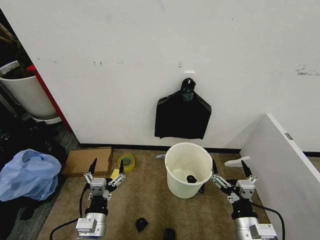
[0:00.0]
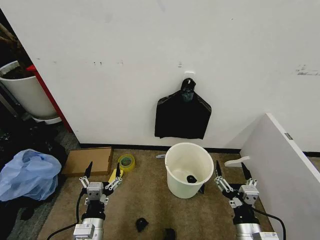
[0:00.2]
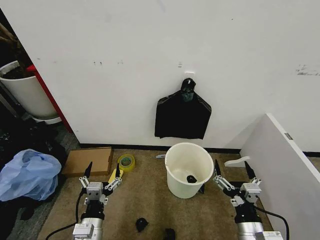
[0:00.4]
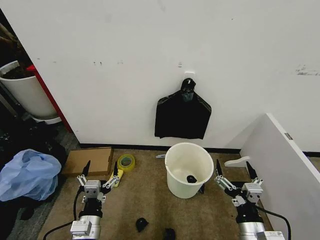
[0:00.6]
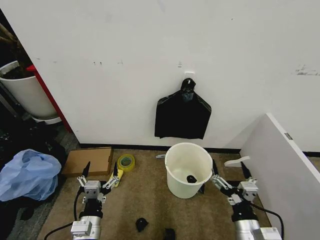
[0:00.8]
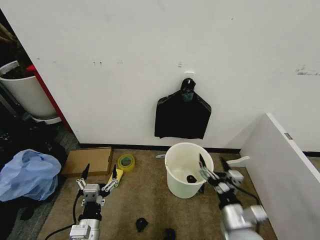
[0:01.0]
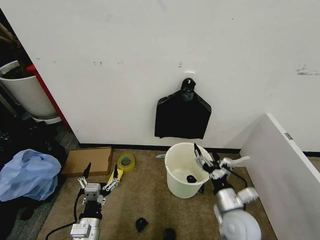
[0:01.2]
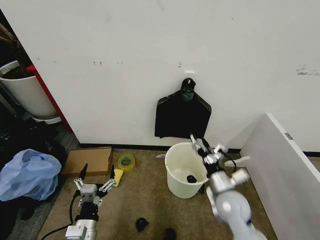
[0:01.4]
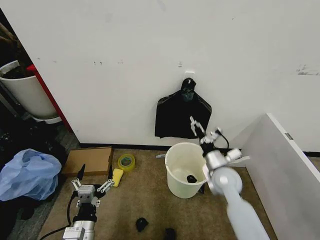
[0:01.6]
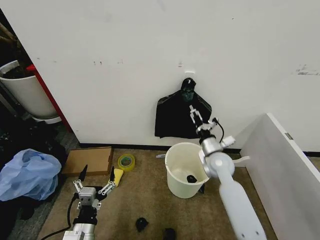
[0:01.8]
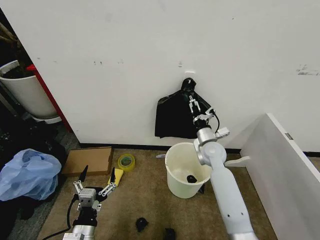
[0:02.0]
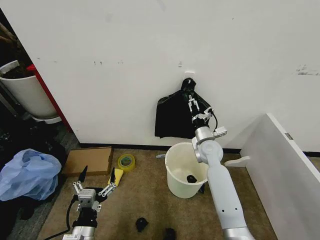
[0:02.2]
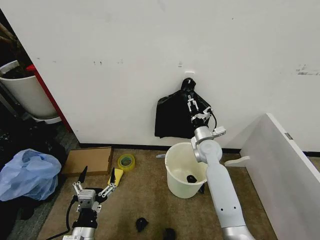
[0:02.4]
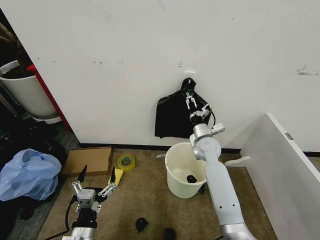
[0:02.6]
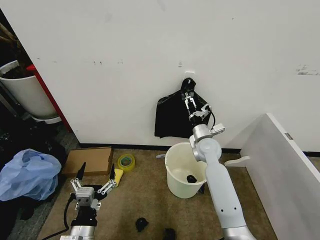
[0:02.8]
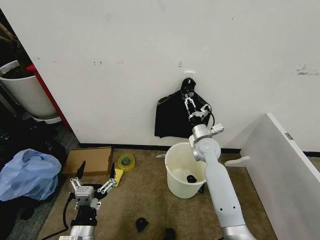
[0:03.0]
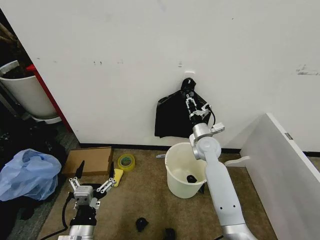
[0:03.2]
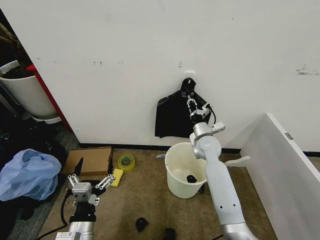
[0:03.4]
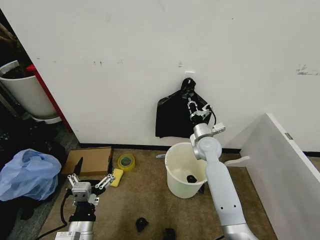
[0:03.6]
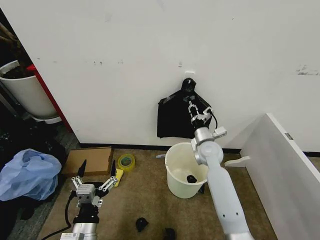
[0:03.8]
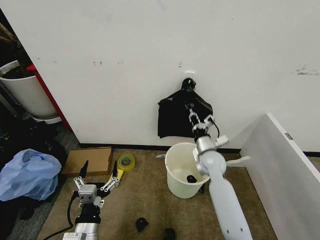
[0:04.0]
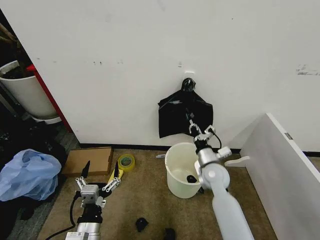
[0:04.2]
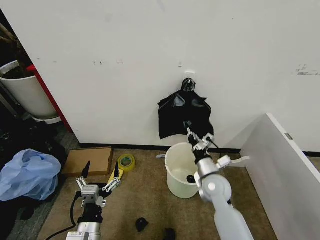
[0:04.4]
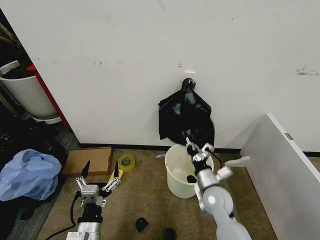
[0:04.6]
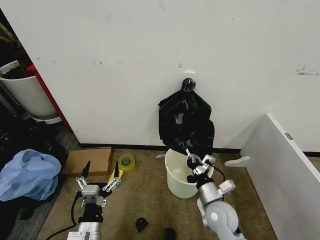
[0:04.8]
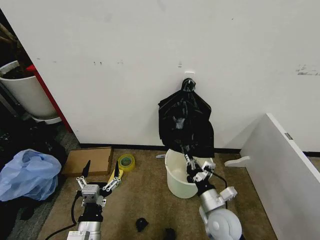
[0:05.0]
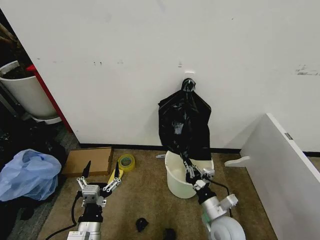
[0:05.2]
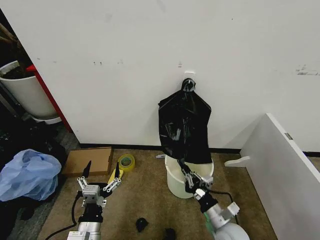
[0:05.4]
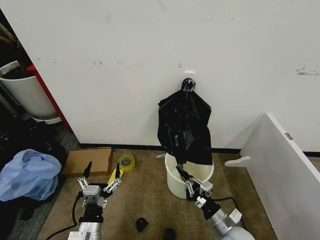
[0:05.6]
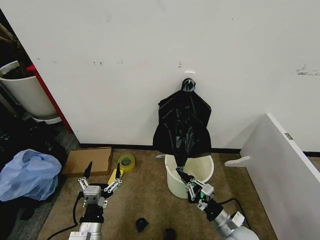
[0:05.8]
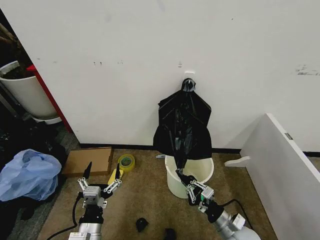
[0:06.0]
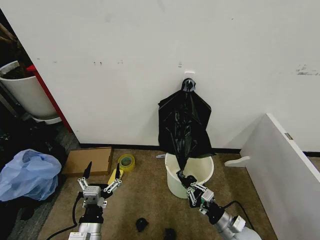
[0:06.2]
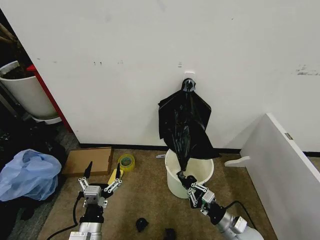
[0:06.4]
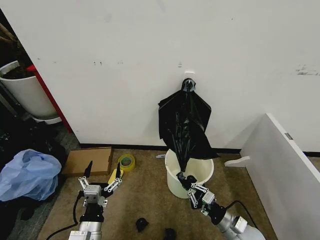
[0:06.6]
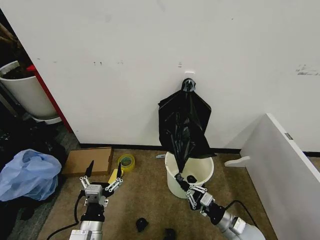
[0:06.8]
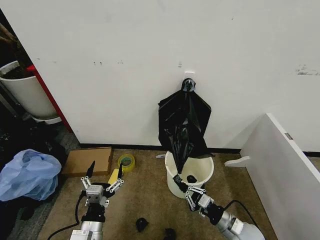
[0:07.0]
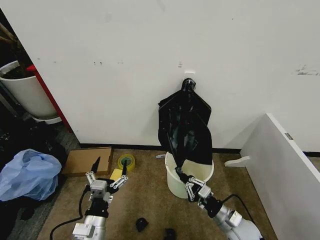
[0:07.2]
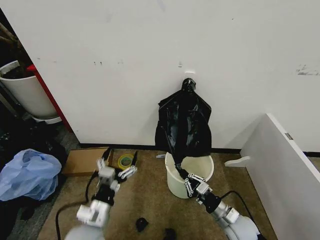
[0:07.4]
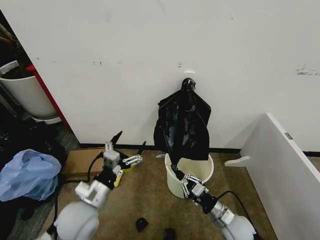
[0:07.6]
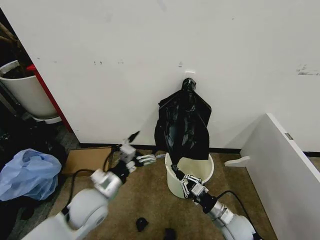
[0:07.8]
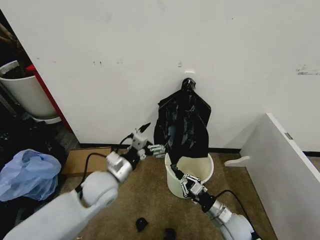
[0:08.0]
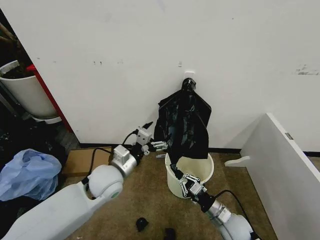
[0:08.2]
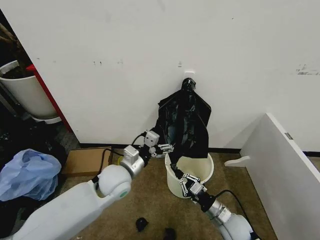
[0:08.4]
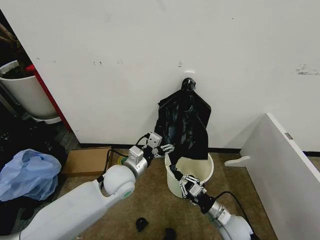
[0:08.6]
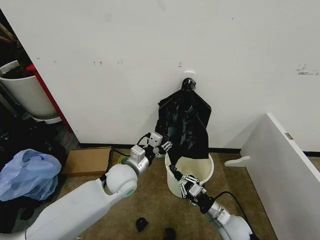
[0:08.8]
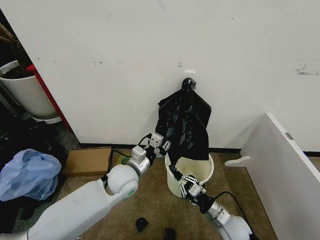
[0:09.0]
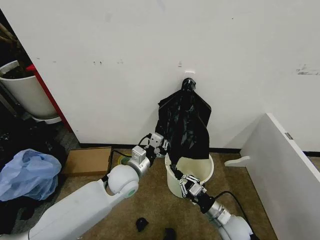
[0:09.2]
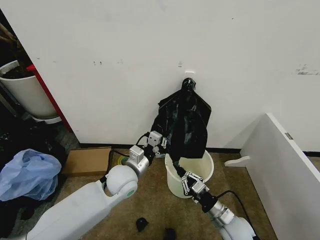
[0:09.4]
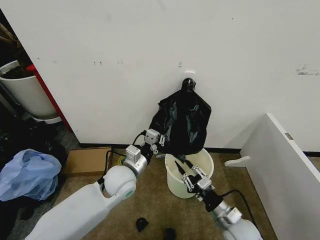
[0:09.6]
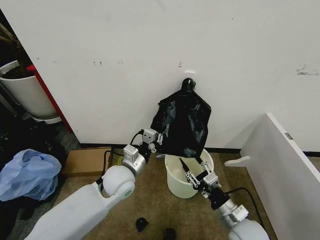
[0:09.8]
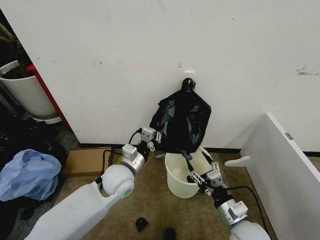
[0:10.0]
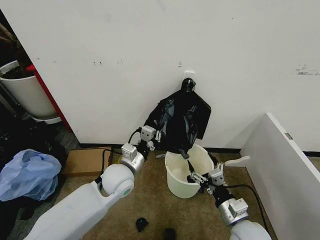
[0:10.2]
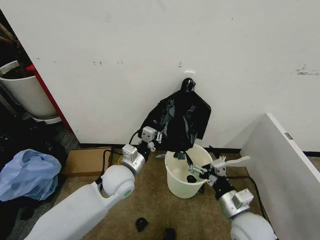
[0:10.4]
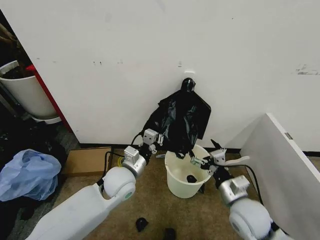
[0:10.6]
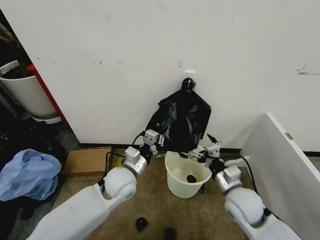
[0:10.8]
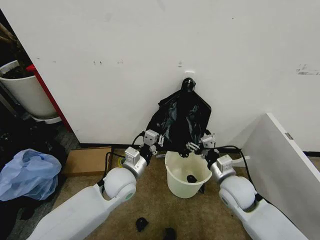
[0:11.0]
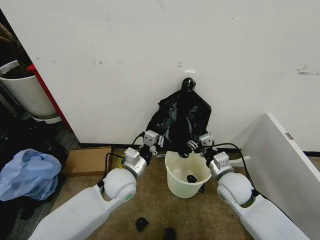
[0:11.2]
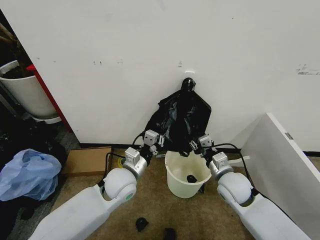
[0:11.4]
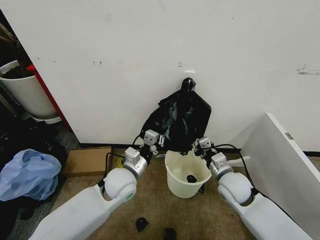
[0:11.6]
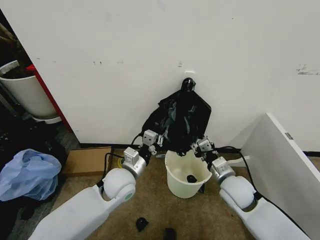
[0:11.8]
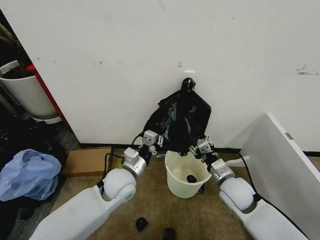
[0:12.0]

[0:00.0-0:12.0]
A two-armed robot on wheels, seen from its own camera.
Task of the whole recording: Place the garbage bag over the trash bin.
0:01.6 to 0:03.0: The right gripper goes some 10 cm forward, and closes up.
0:03.0 to 0:04.4: The right gripper shifts approximately 15 cm backward, and closes up.
0:04.4 to 0:06.0: The right gripper moves backward, downward and to the right, approximately 15 cm.
0:06.0 to 0:07.6: The left gripper goes approximately 10 cm forward and upward.
0:07.6 to 0:09.0: The left gripper shifts some 15 cm forward and to the right, and closes up.
0:09.0 to 0:10.4: The right gripper travels upward by some 15 cm, and opens its fingers.
0:10.4 to 0:12.0: The right gripper moves forward, roughly 10 cm, and closes.

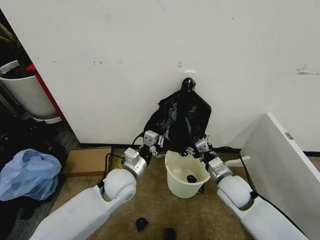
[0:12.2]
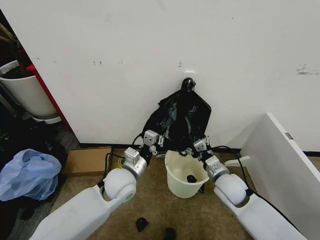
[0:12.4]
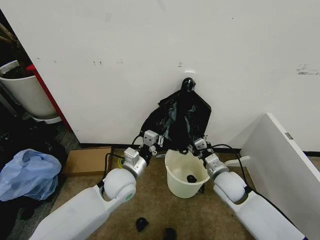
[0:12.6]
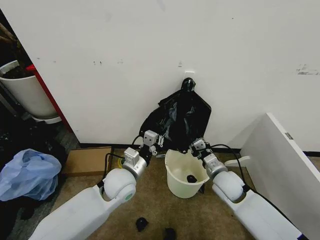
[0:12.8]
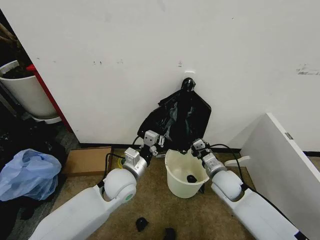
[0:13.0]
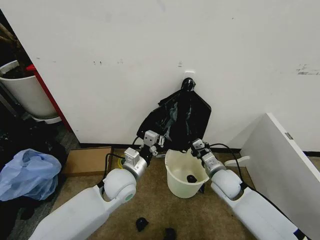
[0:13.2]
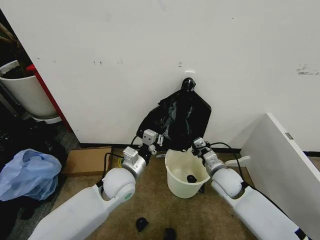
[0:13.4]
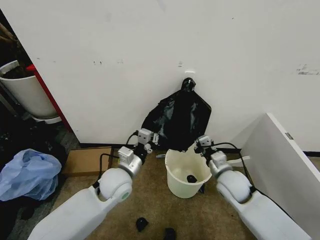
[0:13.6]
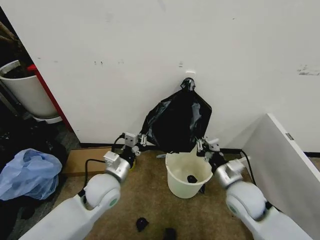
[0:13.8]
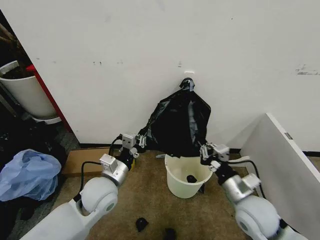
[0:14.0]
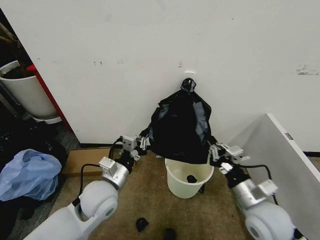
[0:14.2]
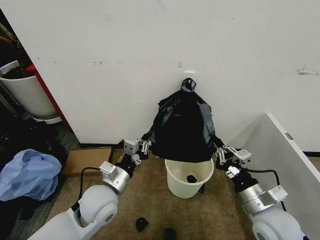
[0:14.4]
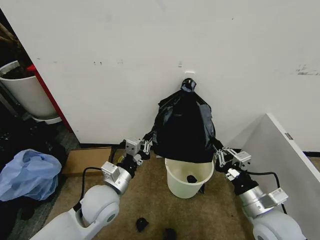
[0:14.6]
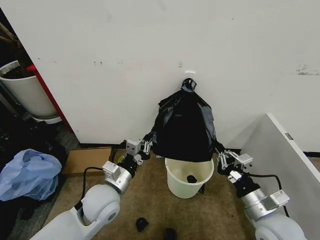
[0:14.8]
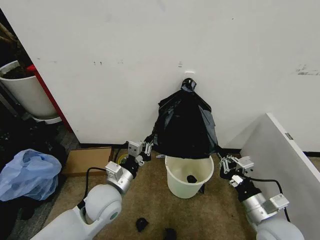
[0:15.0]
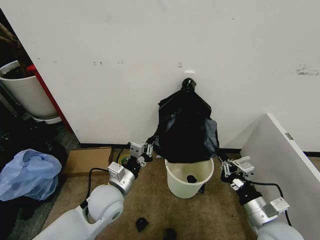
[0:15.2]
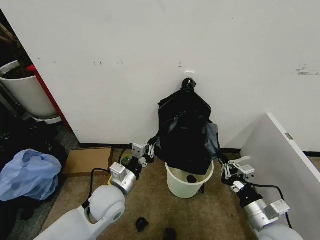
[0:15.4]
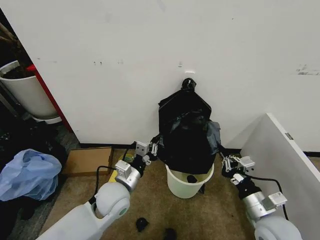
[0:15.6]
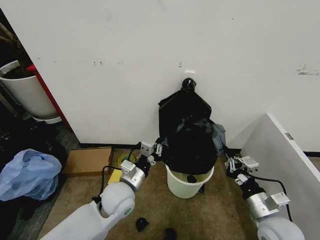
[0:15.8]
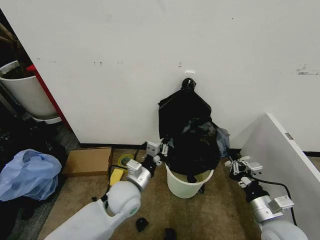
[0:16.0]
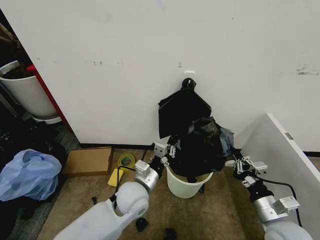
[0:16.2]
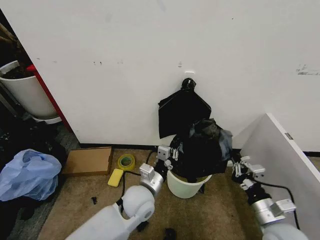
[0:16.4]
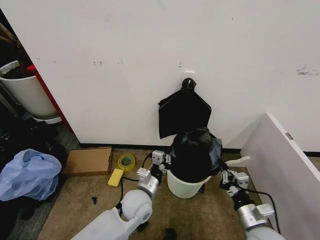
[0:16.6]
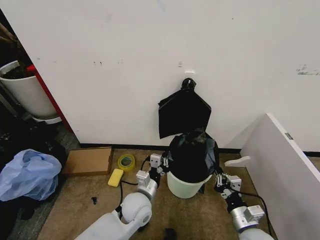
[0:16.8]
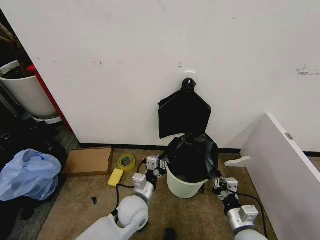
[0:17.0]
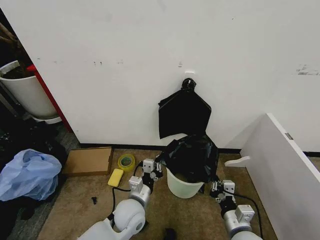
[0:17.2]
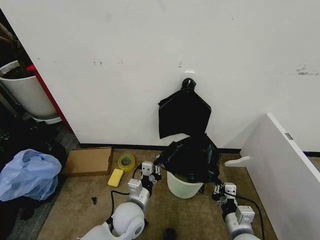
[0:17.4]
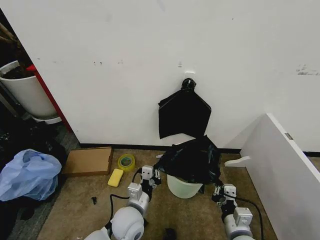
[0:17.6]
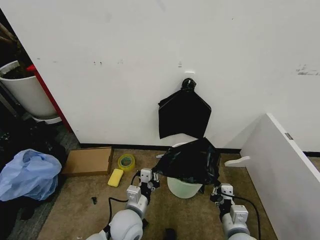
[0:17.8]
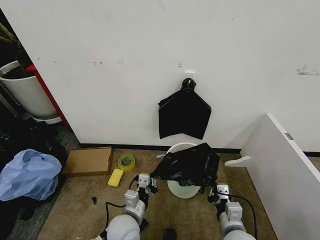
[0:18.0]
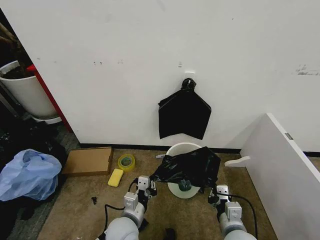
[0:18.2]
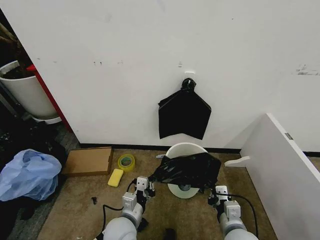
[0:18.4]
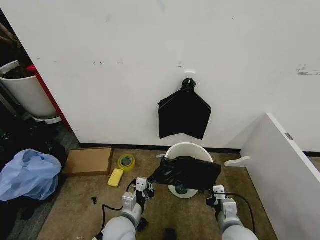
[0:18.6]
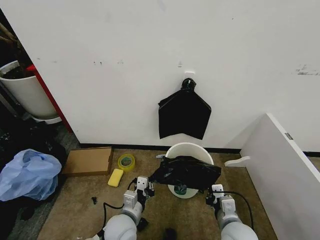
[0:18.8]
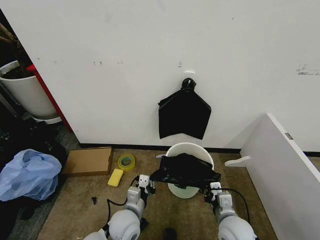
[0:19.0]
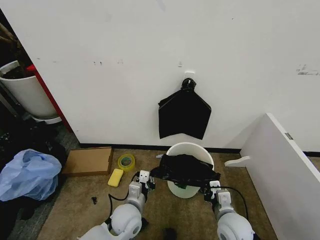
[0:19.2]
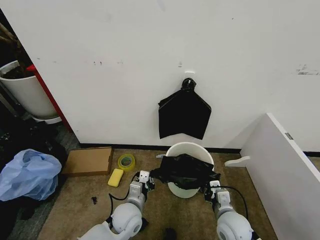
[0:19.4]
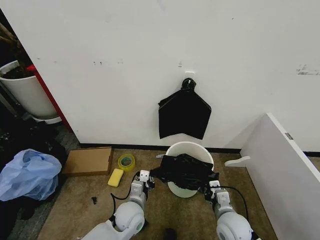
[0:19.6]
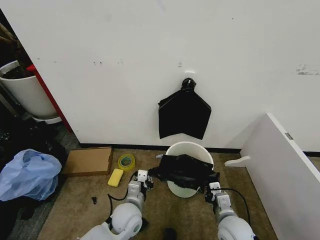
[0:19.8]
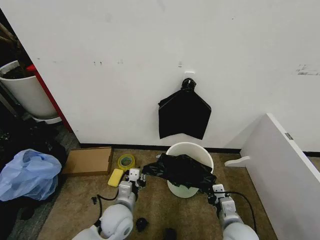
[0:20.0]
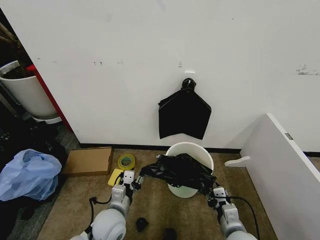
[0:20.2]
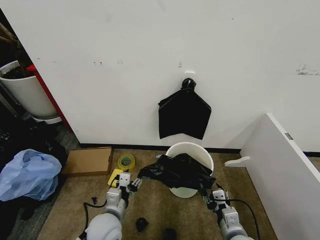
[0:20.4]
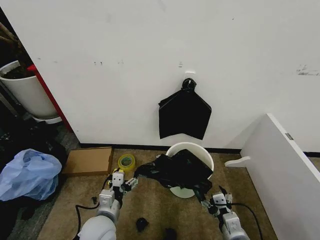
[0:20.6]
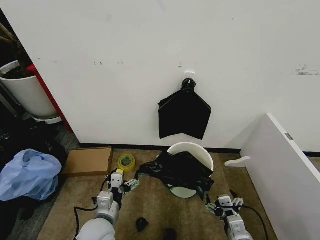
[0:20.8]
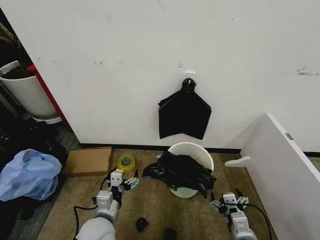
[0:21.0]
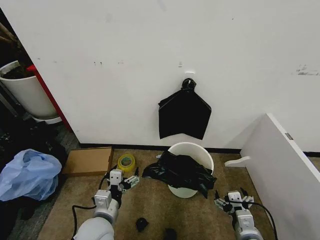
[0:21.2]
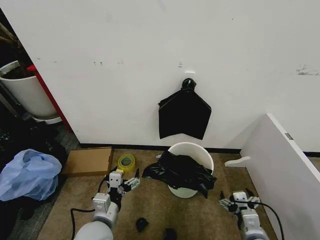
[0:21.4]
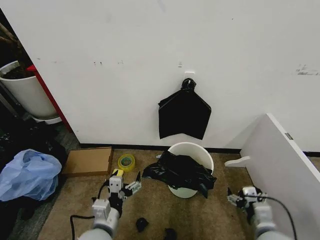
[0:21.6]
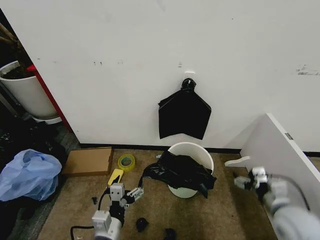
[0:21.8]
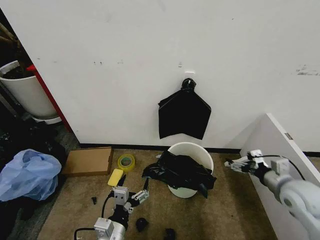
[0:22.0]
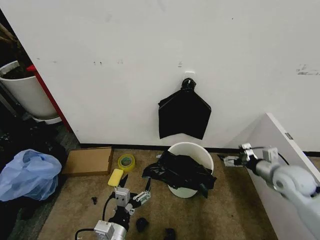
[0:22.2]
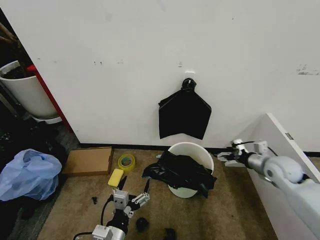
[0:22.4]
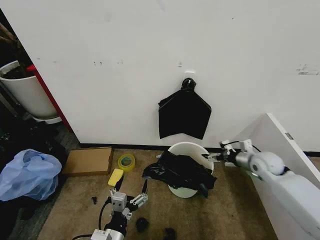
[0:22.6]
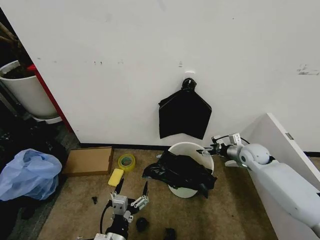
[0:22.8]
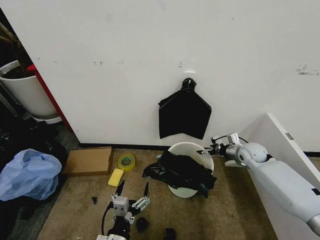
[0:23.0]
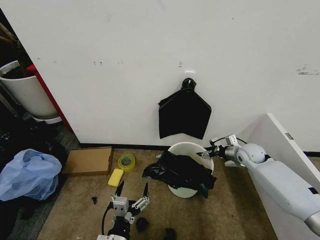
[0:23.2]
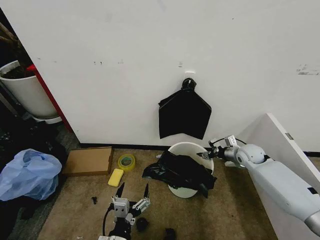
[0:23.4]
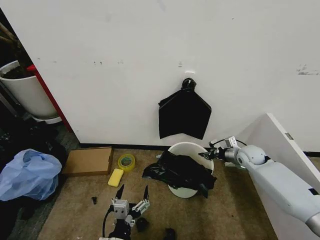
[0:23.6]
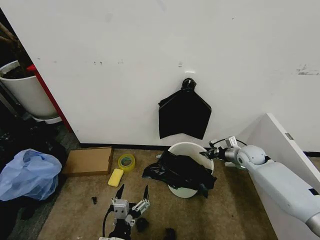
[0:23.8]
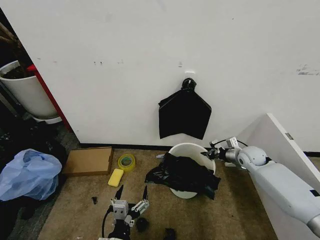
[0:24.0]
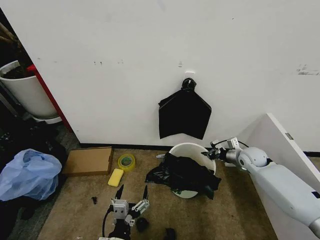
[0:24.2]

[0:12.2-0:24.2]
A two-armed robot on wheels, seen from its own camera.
Task of the whole recording: Place the garbage bag over the trash bin.
0:12.2 to 0:13.8: The right gripper changes place by about 5 cm, and closes.
0:13.8 to 0:15.2: The right gripper goes about 10 cm backward and to the right.
0:15.2 to 0:16.6: The right gripper shifts about 5 cm downward. The left gripper is displaced to the right and downward by roughly 10 cm.
0:16.6 to 0:18.2: The right gripper heads to the left, covering about 10 cm. Meanwhile the left gripper goes approximately 10 cm backward.
0:18.2 to 0:19.8: The left gripper moves forward, approximately 5 cm, while the right gripper ends up approximately 5 cm from where it was.
0:19.8 to 0:21.2: The left gripper shifts approximately 10 cm upward, to the left and backward, and opens up, while the right gripper is displaced backward by roughly 5 cm, and opens its fingers.
0:21.2 to 0:22.6: The left gripper shifts approximately 10 cm backward. The right gripper heads forward and to the right, covering some 30 cm.
0:22.6 to 0:24.2: The right gripper moves about 5 cm, and closes up.
